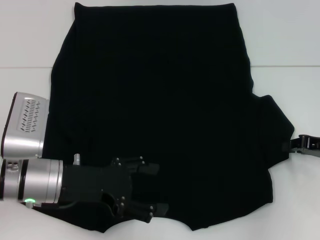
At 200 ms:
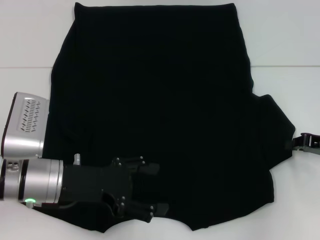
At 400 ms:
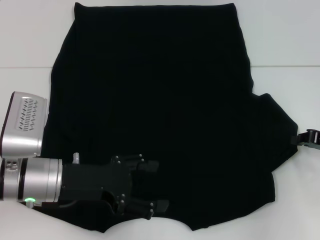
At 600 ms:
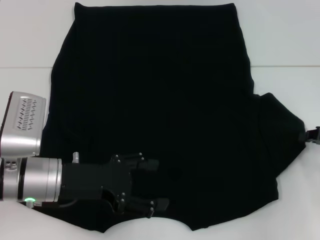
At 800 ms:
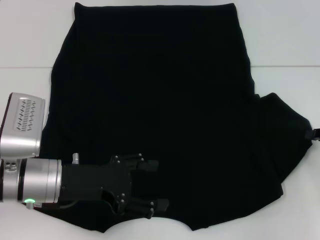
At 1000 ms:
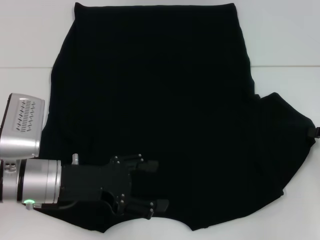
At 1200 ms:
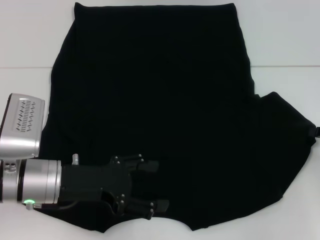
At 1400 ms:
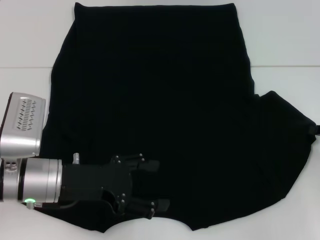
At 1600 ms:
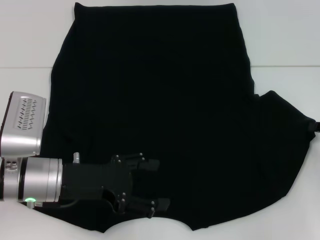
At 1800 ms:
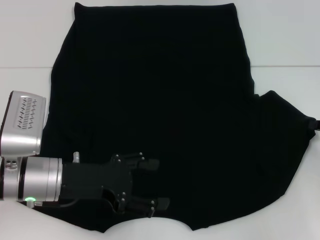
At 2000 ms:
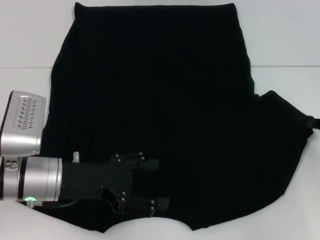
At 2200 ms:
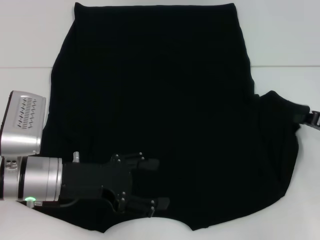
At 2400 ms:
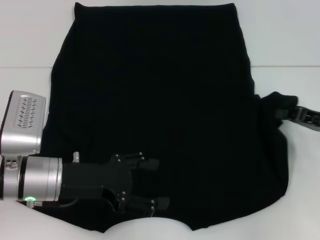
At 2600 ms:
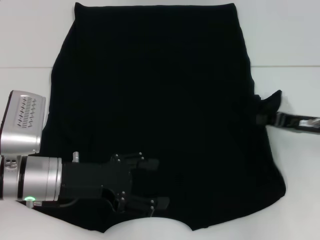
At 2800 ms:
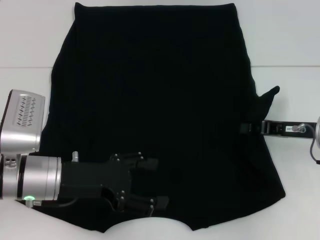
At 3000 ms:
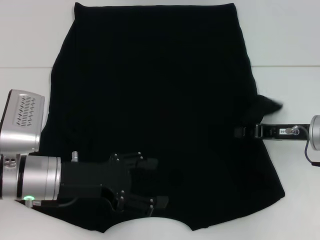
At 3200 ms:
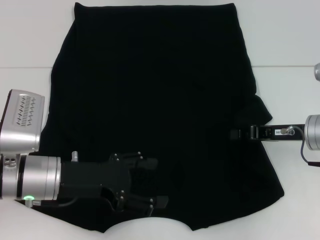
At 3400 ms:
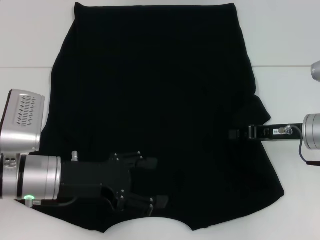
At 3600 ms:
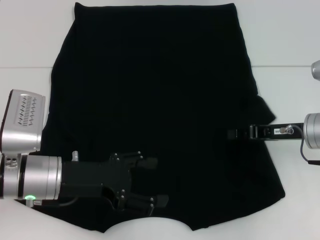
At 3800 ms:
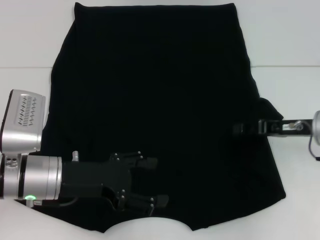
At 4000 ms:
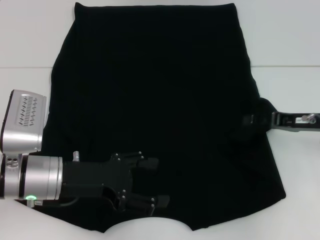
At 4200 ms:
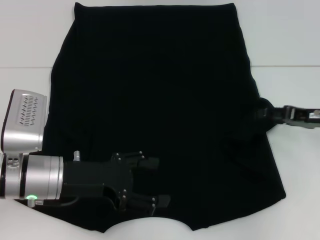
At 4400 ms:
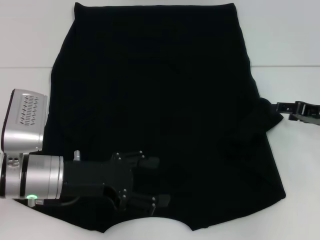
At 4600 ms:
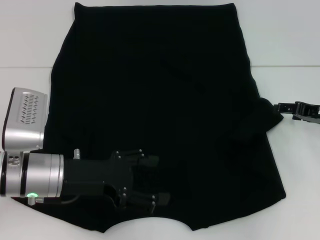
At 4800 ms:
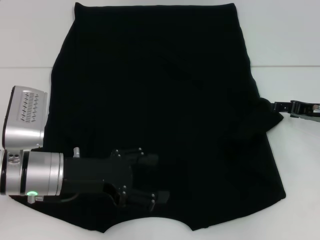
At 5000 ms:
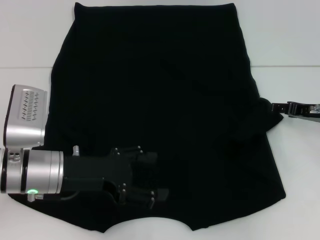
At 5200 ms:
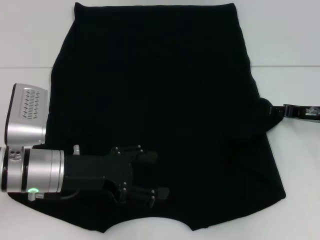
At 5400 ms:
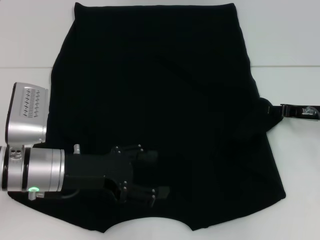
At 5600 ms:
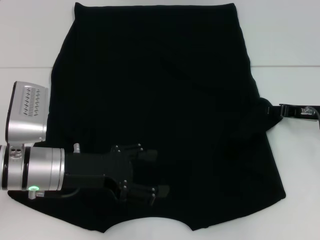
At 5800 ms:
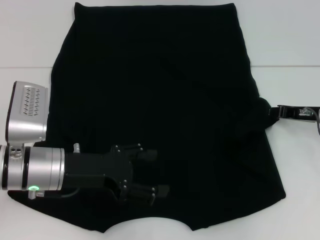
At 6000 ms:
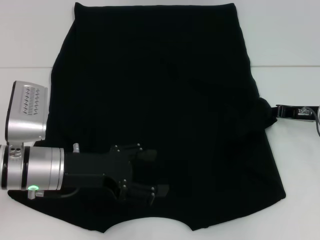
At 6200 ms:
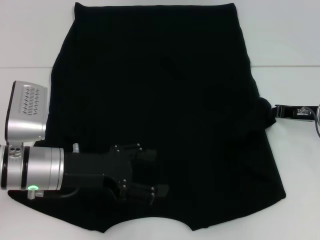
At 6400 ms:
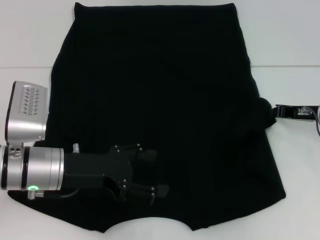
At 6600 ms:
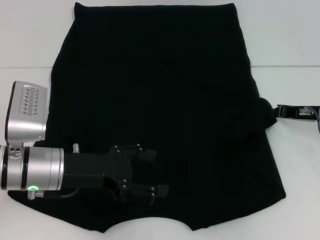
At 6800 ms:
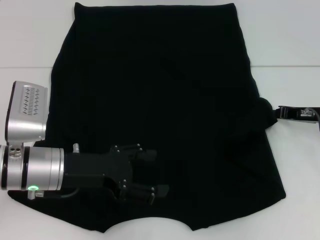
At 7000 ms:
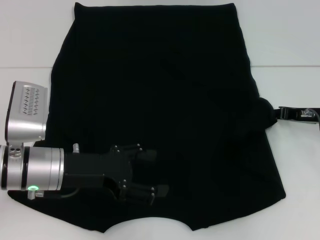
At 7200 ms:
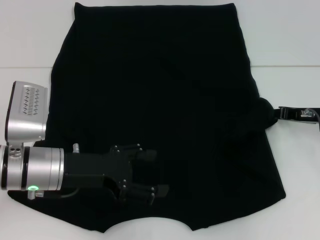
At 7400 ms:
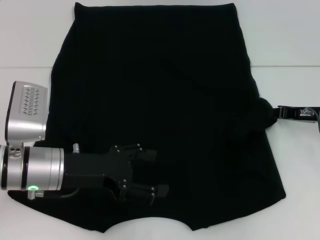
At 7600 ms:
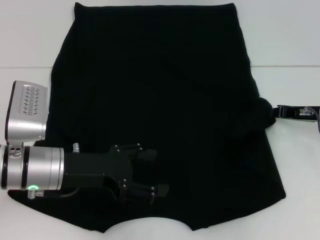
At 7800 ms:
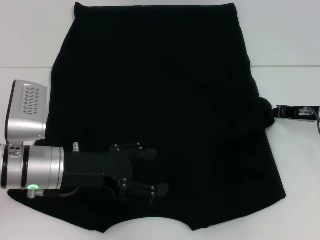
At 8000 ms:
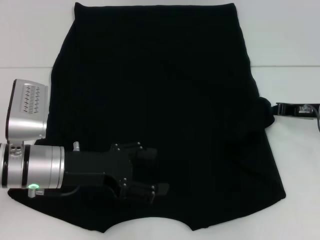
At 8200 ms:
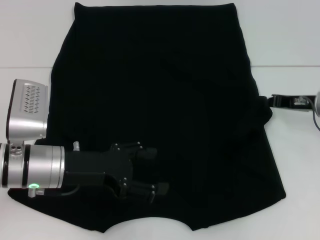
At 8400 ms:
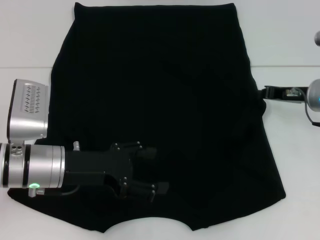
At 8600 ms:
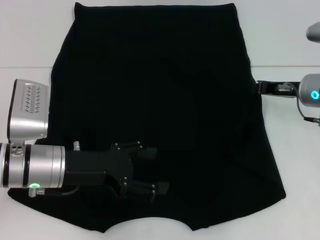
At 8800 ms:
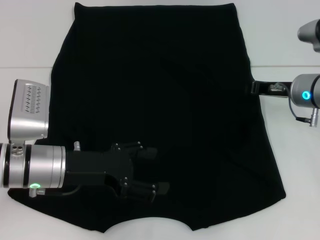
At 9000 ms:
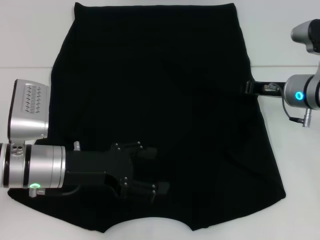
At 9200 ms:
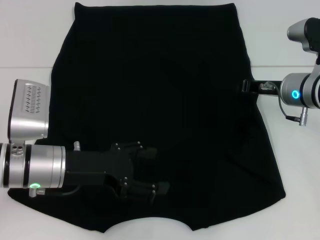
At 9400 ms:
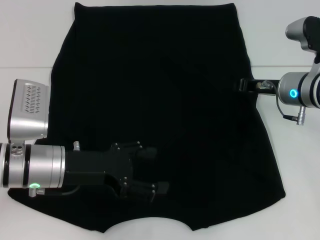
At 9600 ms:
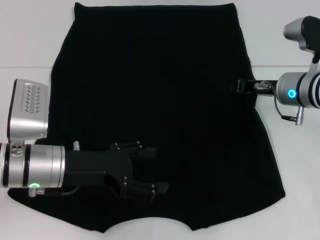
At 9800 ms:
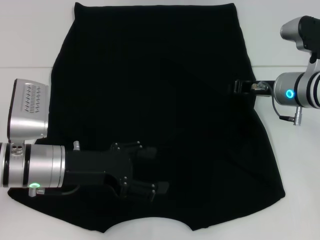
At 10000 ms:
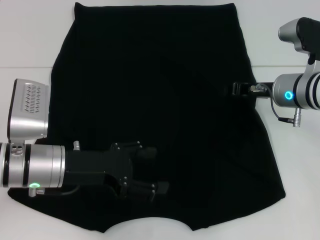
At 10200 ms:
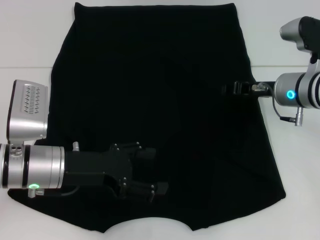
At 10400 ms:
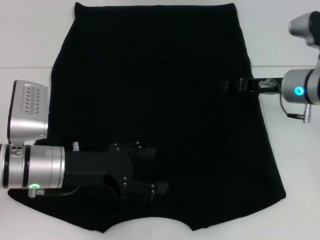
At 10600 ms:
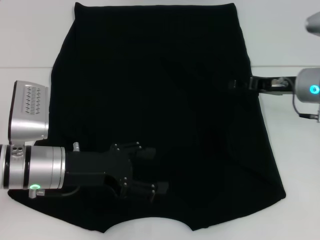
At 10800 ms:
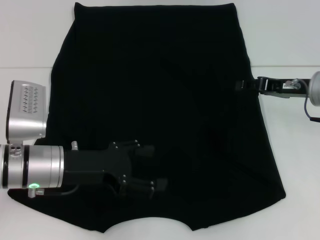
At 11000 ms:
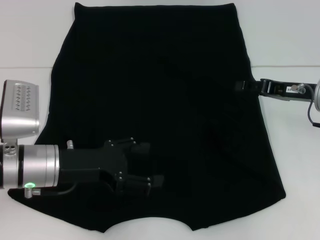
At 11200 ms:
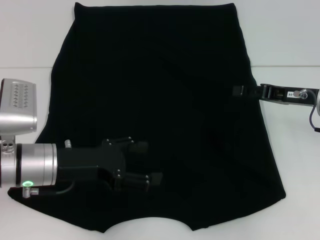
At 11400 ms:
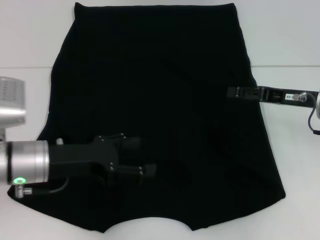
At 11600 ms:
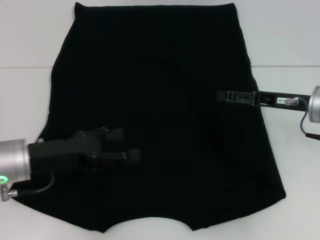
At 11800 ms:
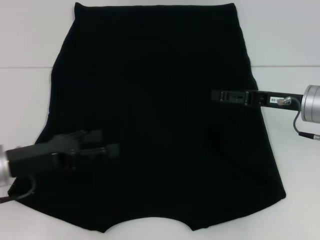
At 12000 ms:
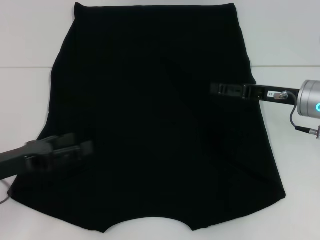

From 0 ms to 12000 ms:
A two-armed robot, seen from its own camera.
Step, from 0 ms to 10600 ms: Fold the bottom right sleeve with your right hand.
From 0 ms to 1600 ms: There are only small adjustments of the grippers.
From 1600 ms to 3000 ms: The right gripper is displaced to the left by approximately 10 cm.
From 3000 ms to 4400 ms: The right gripper is displaced to the right by some 5 cm, and opens its fingers.
From 4400 ms to 6000 ms: The right gripper closes.
From 6000 ms to 7600 ms: Both grippers stay about where they are.
From 7600 ms to 9000 ms: The right gripper shifts some 5 cm to the left.
From 9000 ms to 10400 ms: There are only small adjustments of the grippers.
From 10400 ms to 12000 ms: The left gripper goes some 10 cm to the left; the right gripper opens up.

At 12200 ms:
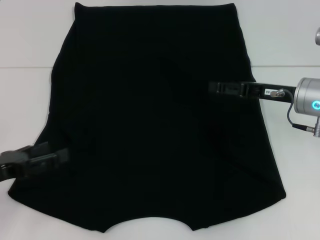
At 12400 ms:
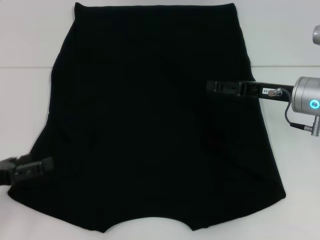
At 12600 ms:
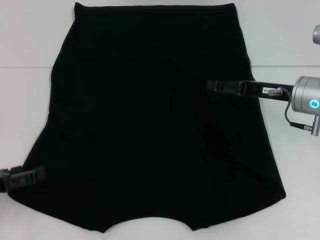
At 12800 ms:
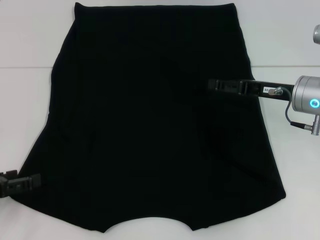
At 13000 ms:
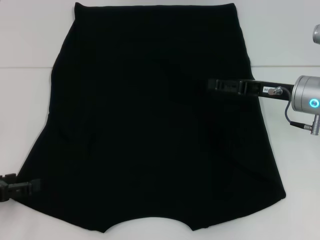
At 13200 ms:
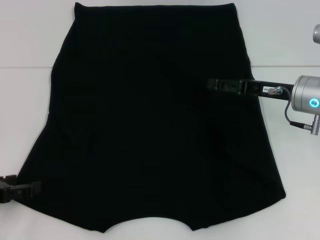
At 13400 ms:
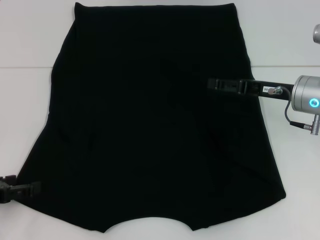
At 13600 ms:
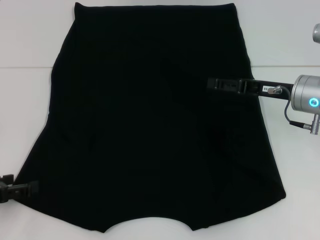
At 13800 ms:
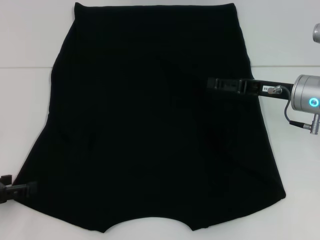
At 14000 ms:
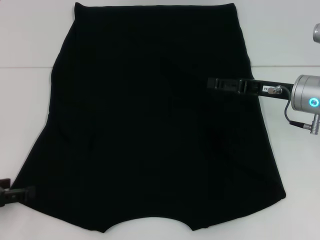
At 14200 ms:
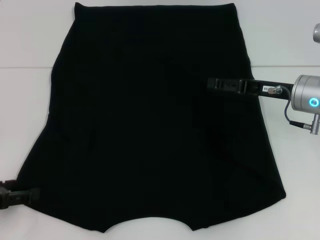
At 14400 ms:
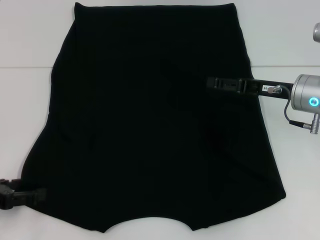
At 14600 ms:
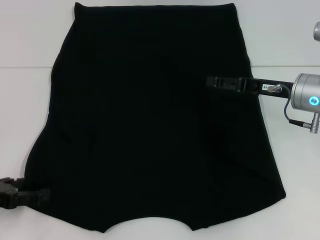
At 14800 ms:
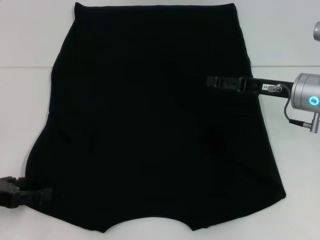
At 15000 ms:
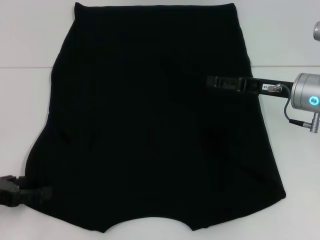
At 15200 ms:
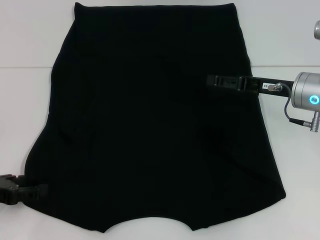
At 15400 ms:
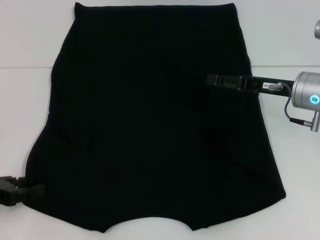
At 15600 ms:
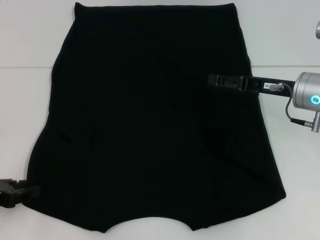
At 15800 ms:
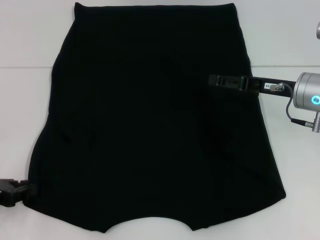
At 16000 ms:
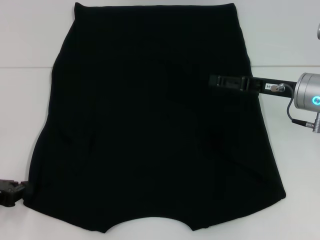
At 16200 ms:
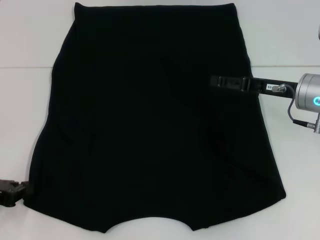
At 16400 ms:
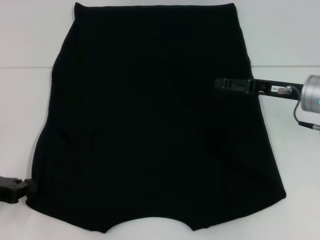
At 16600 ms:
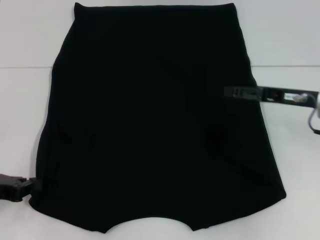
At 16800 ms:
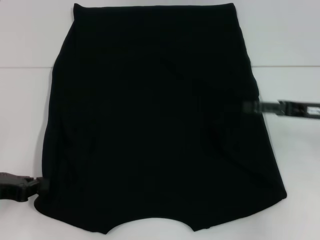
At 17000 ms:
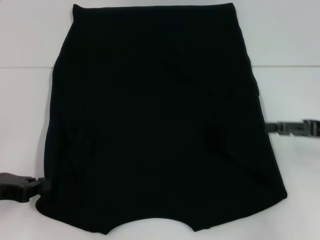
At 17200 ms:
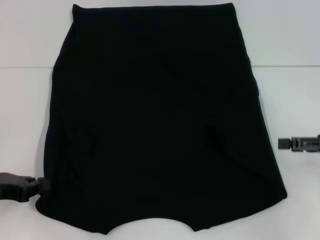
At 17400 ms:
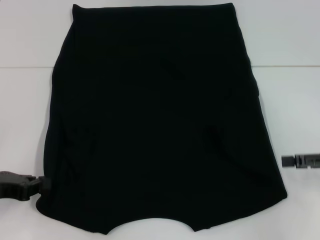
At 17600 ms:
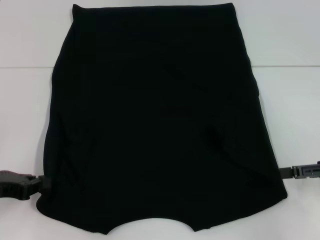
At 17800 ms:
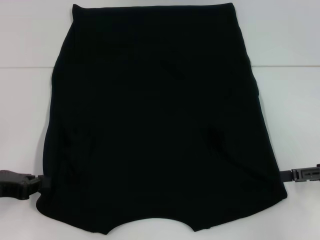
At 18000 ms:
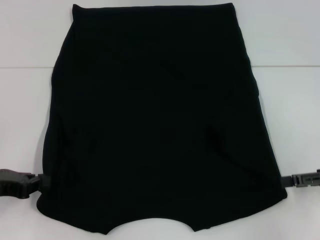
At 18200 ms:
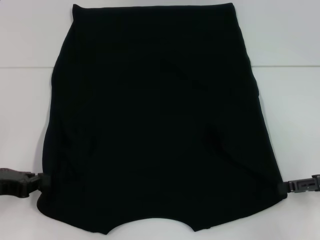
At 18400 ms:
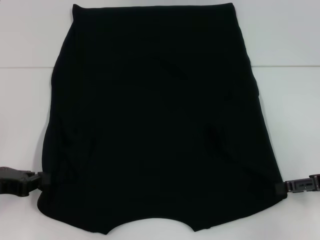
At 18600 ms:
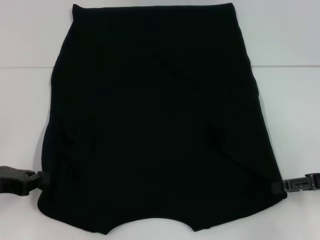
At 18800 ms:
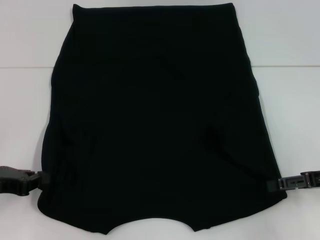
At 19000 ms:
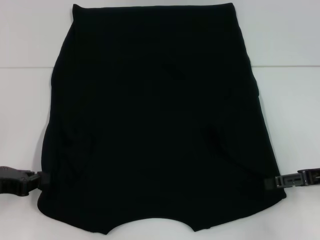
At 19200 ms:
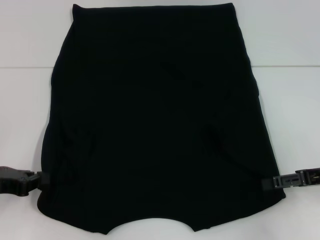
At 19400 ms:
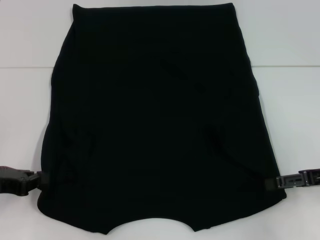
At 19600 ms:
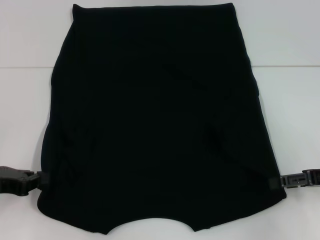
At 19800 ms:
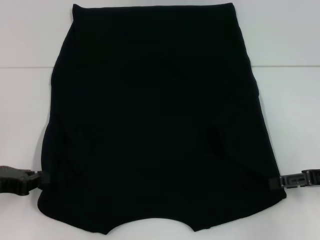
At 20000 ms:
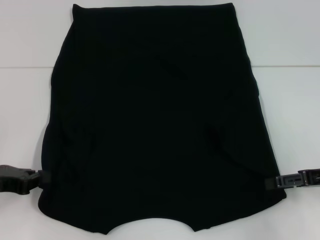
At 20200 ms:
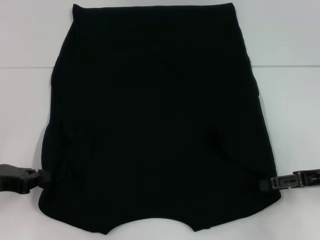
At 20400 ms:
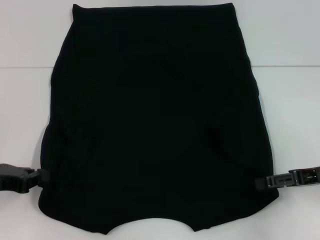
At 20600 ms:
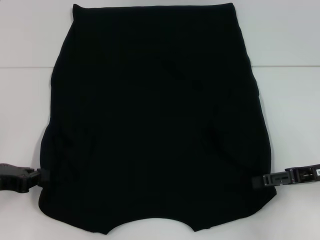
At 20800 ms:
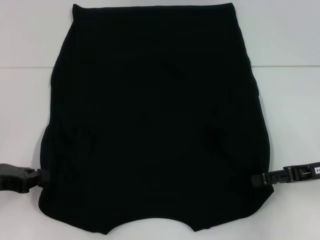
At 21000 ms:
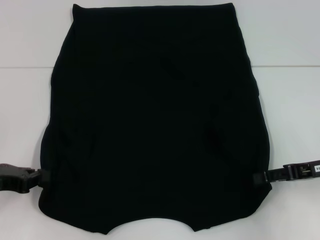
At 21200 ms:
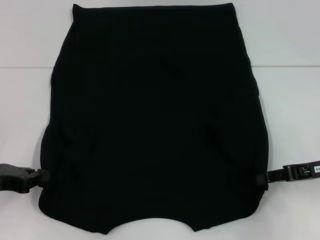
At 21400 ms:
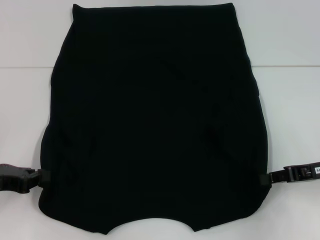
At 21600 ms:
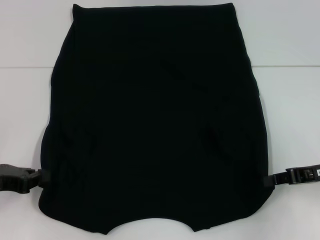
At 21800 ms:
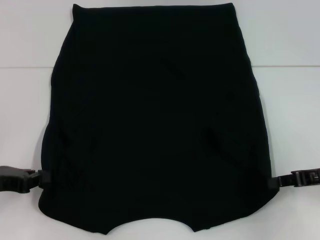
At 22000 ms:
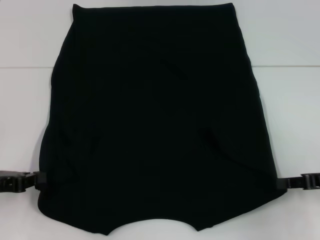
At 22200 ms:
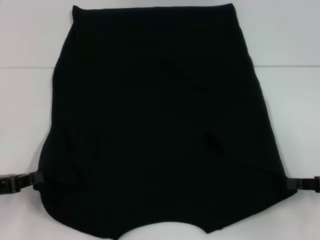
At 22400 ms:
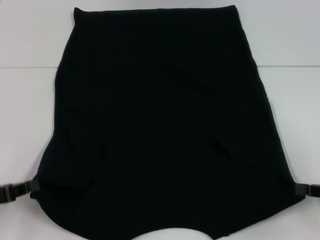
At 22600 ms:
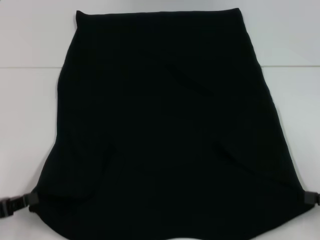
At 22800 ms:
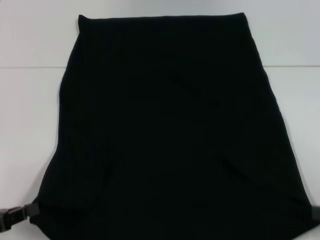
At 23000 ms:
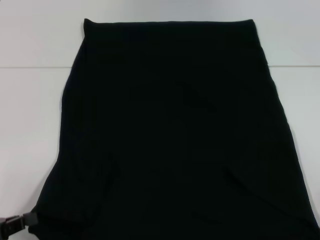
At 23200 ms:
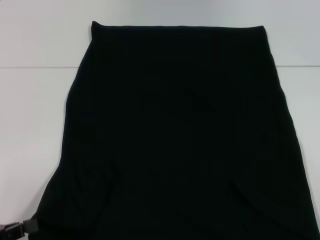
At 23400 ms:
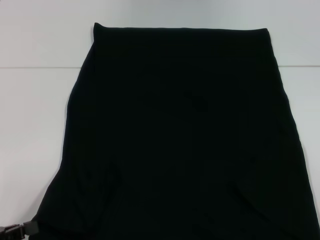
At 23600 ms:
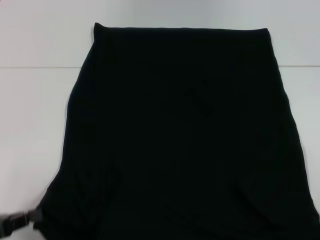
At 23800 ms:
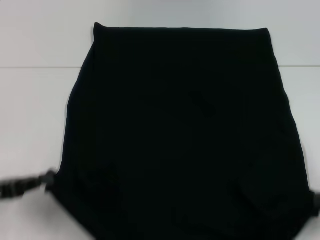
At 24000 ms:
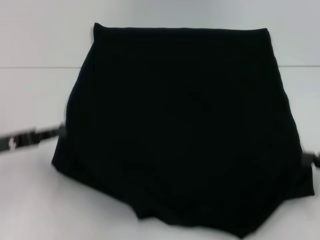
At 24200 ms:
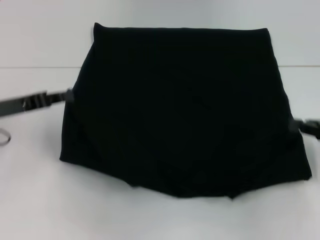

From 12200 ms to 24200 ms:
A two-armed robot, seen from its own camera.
Step, from 12200 ms to 20800 ms: Grab the bottom left corner with your left hand.
Step, from 12200 ms to 20800 ms: Grab the bottom right corner with your right hand.
From 13800 ms to 15200 ms: The grippers move only a little.
From 15200 ms to 16600 ms: The left gripper closes.
From 16600 ms to 18200 ms: The right gripper moves to the right and backward, about 10 cm.
From 18200 ms to 21200 ms: The grippers move only a little.
From 21200 ms to 22600 ms: The left gripper shifts about 5 cm backward, while the right gripper heads backward and to the right, covering about 10 cm, and closes.
From 22600 ms to 24200 ms: The right gripper heads forward, covering approximately 5 cm; the left gripper is displaced forward and upward by about 15 cm.
